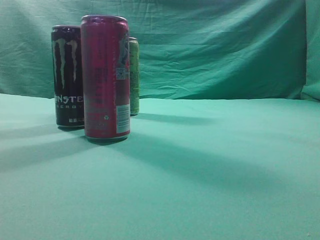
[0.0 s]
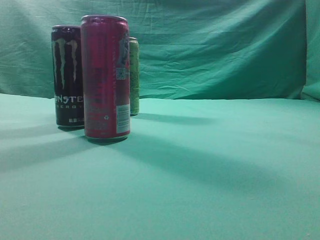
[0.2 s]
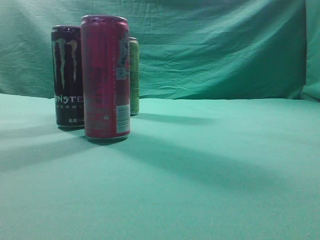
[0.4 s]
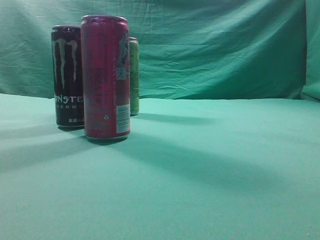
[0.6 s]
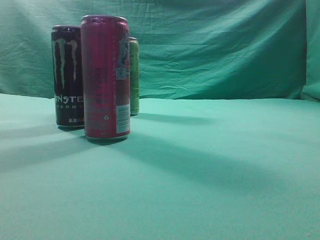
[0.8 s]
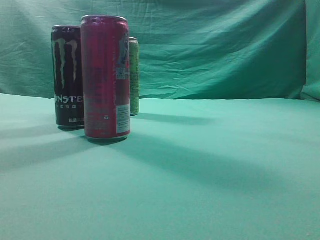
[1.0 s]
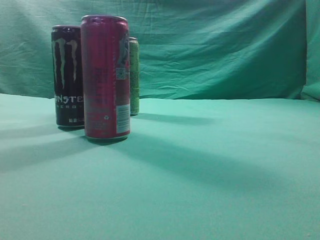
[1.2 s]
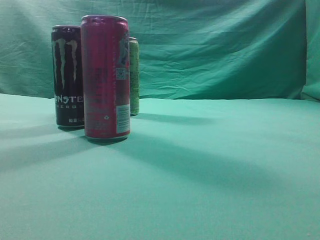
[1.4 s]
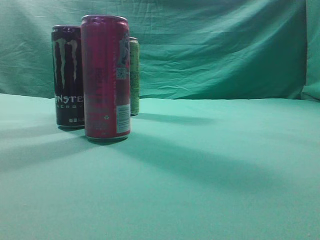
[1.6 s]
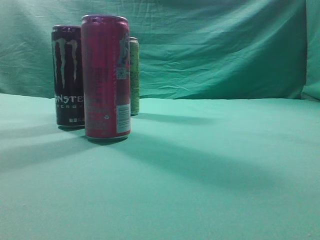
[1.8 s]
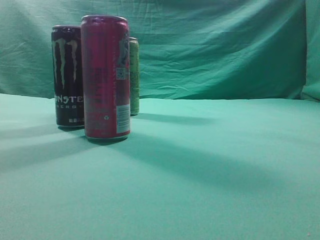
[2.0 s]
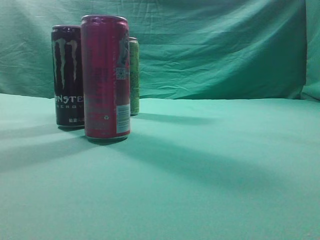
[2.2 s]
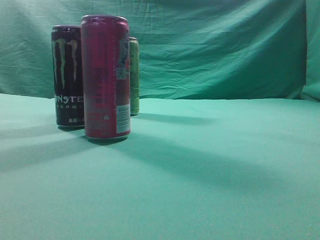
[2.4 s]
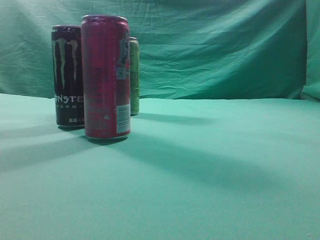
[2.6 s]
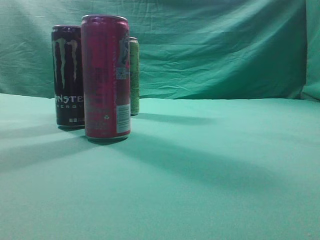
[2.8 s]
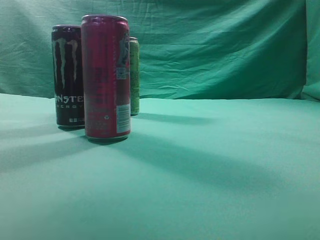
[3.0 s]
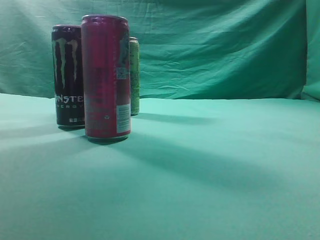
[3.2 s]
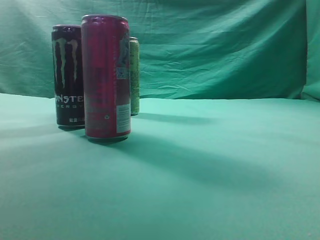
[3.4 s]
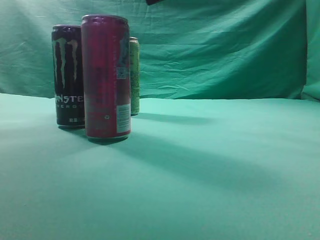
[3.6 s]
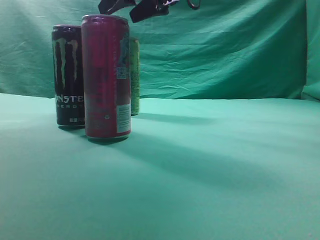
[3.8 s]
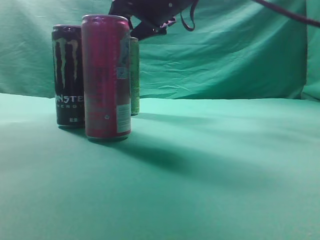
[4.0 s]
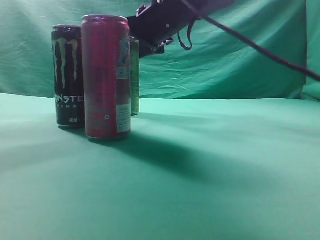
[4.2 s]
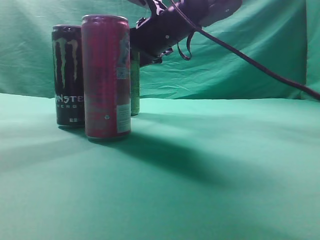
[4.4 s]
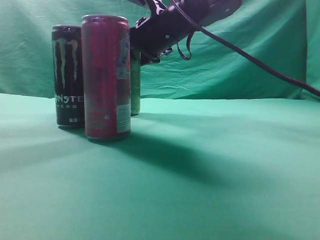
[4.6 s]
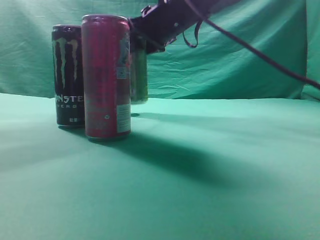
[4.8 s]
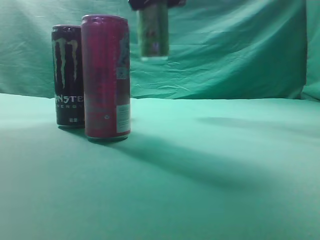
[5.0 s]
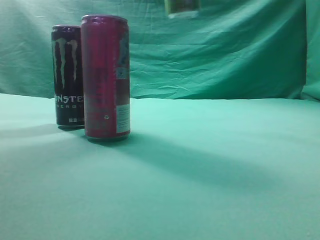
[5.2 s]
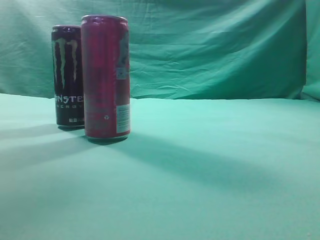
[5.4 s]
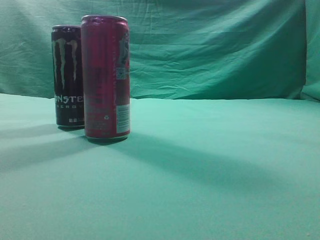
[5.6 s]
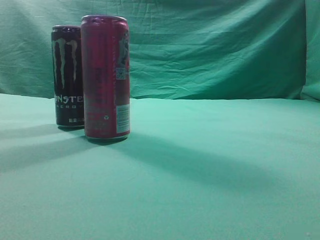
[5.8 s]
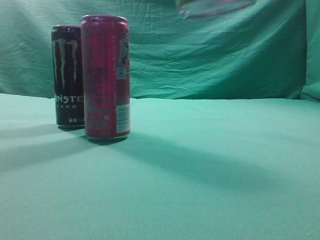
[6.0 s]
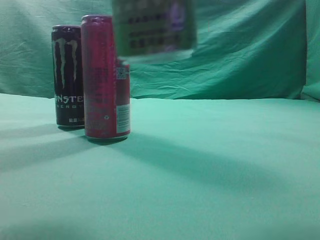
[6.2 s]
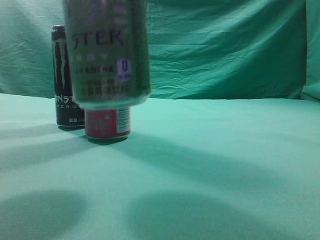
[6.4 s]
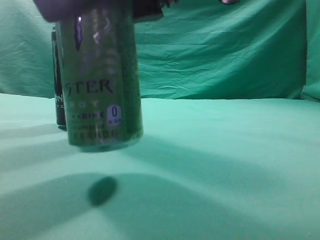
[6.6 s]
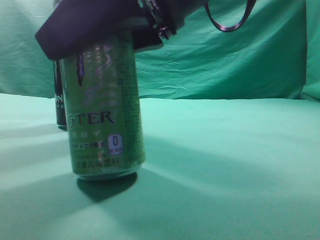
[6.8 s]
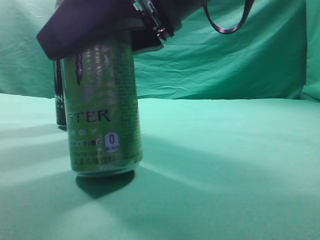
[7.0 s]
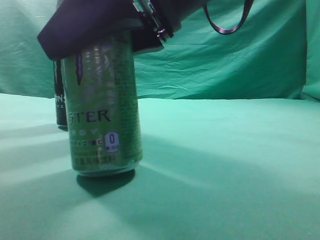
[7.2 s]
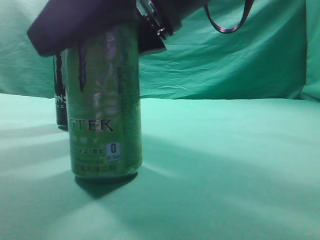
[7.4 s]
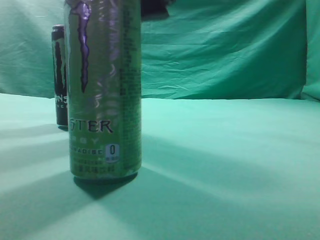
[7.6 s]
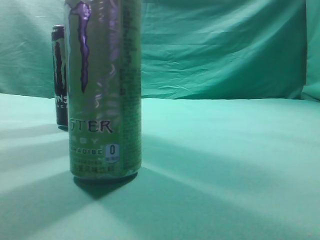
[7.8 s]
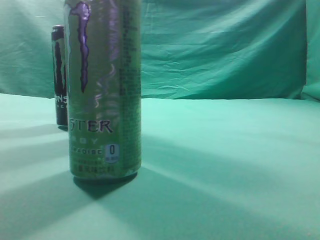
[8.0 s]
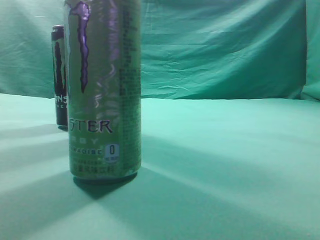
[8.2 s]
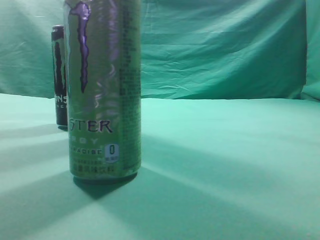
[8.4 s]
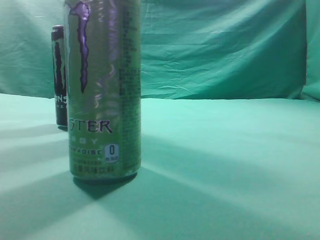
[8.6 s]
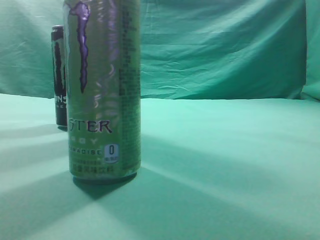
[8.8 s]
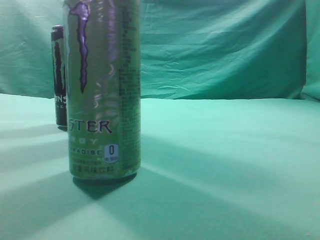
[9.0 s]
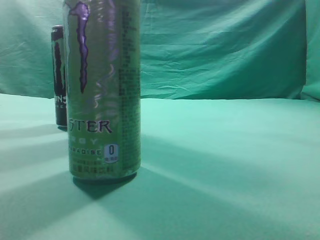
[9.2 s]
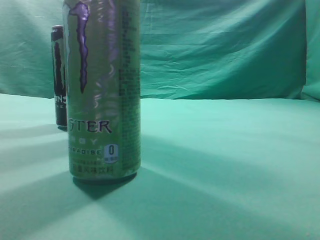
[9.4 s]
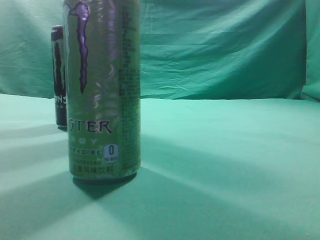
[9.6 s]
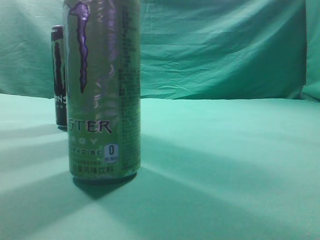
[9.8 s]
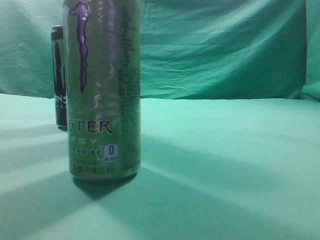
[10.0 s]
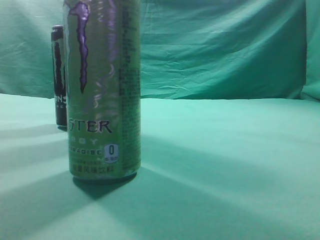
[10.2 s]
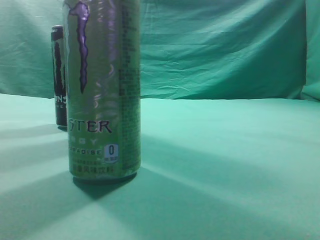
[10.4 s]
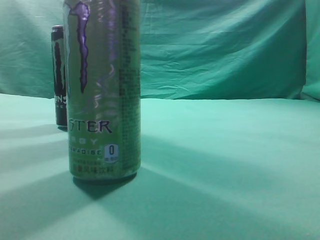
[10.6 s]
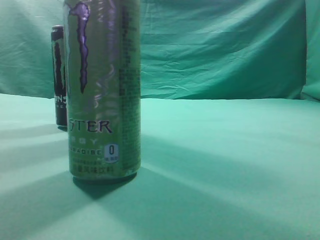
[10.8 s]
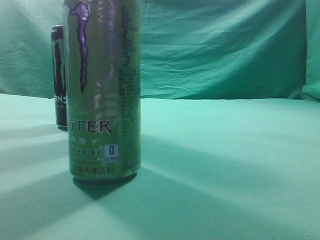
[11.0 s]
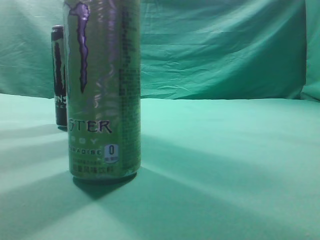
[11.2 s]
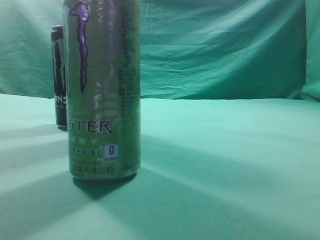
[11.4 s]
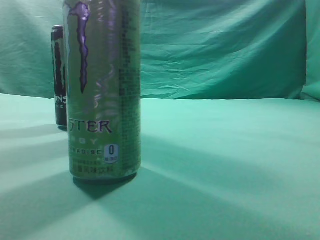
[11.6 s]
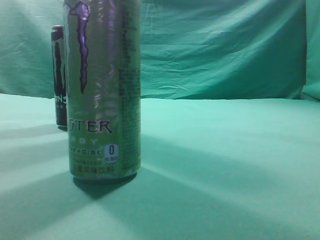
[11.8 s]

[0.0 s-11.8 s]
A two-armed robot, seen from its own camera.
Task of the whole recording: move one drink among three beverages.
Step, 0.0 to 4.8 s: Grasp the beverage bottle placed at the back of the desk.
Step, 5.0 to 7.8 s: Place the beverage bottle to the front of the table.
1.4 to 3.0 s: The right gripper shifts approximately 30 cm forward, upward and to the left.
3.0 to 4.4 s: The right gripper goes roughly 25 cm forward, downward and to the left, and opens.
4.4 to 6.0 s: The right gripper goes some 30 cm backward and upward.
6.0 to 7.4 s: The right gripper moves downward and to the left, roughly 15 cm.
7.4 to 8.8 s: The right gripper moves upward, to the right and backward, some 30 cm, and closes.
